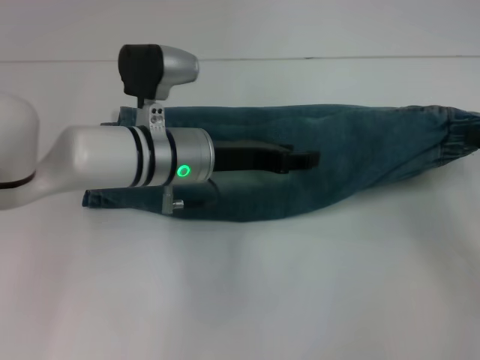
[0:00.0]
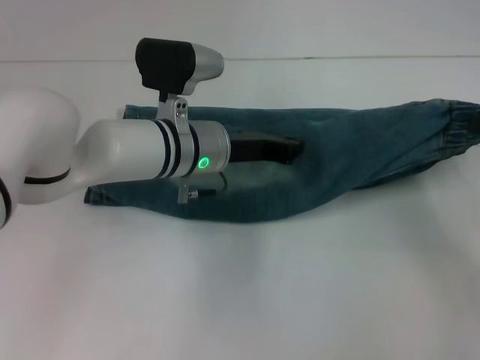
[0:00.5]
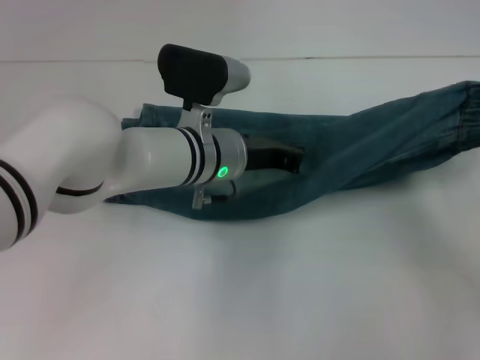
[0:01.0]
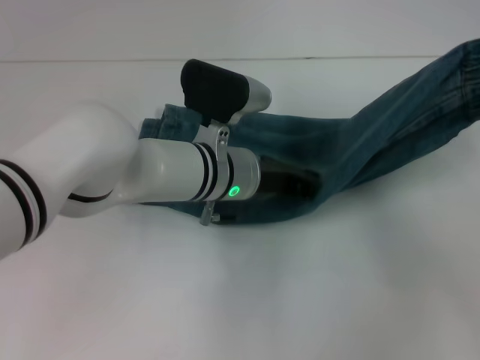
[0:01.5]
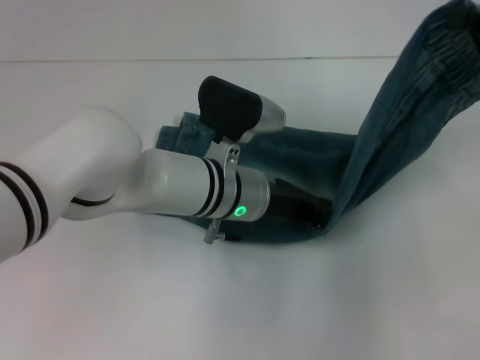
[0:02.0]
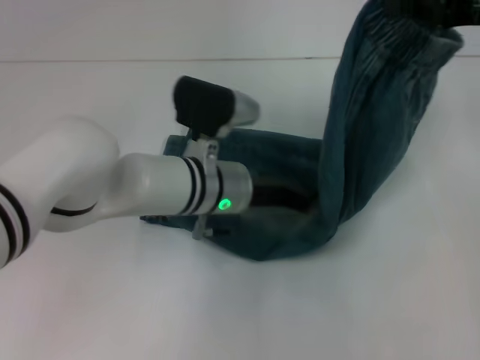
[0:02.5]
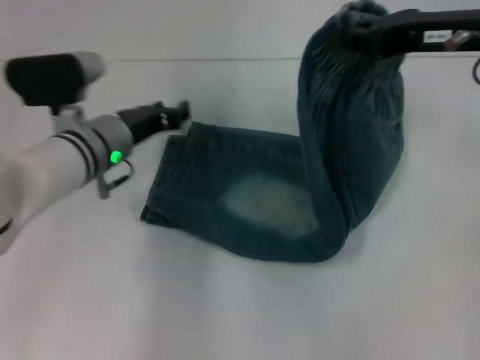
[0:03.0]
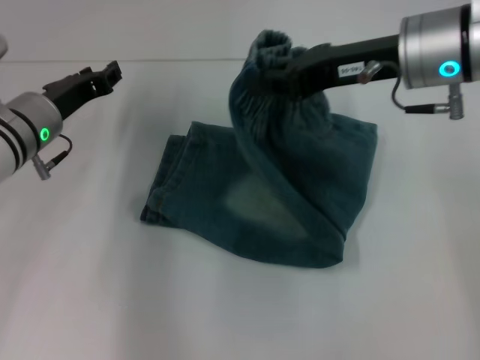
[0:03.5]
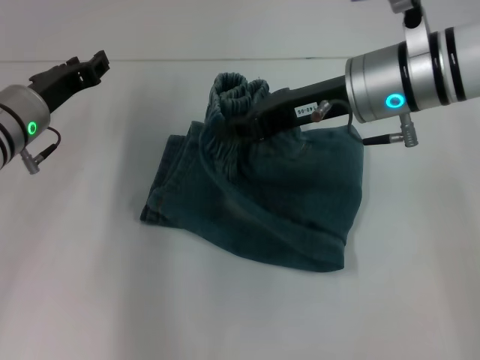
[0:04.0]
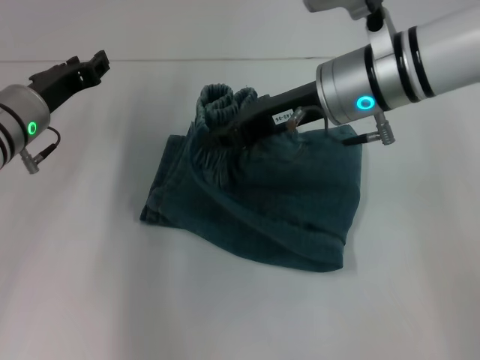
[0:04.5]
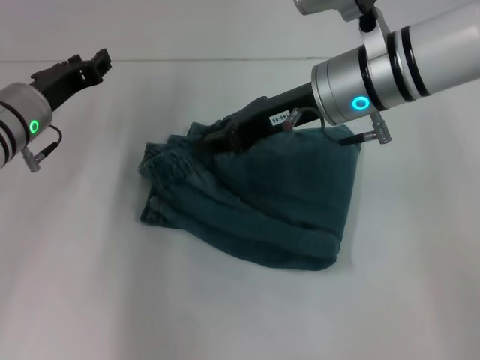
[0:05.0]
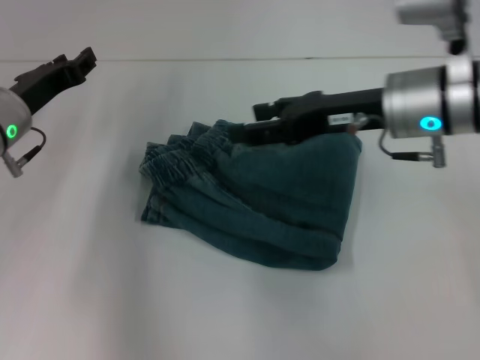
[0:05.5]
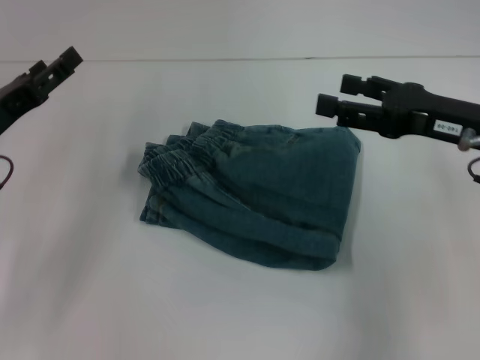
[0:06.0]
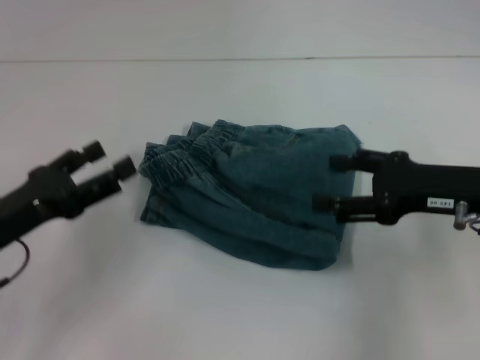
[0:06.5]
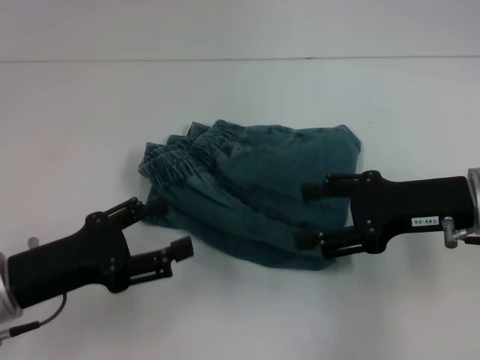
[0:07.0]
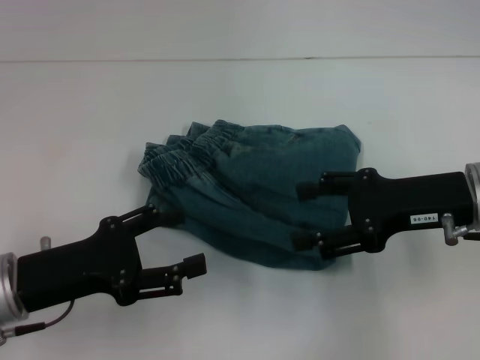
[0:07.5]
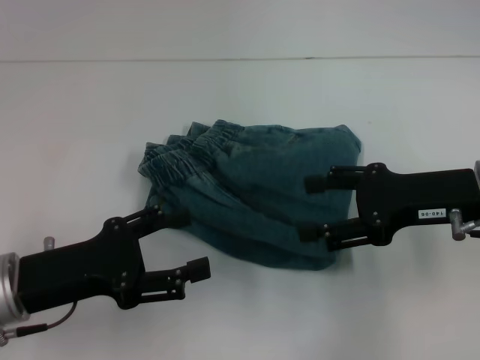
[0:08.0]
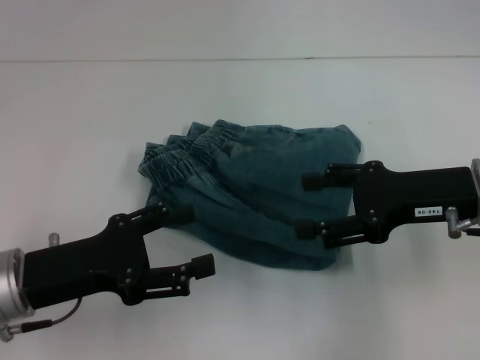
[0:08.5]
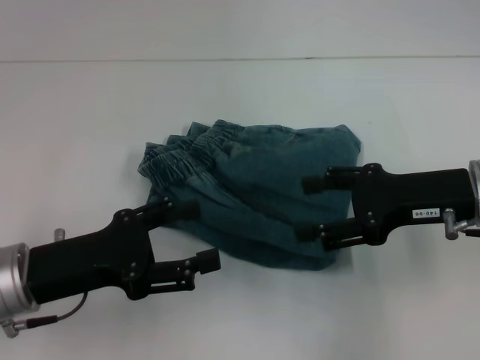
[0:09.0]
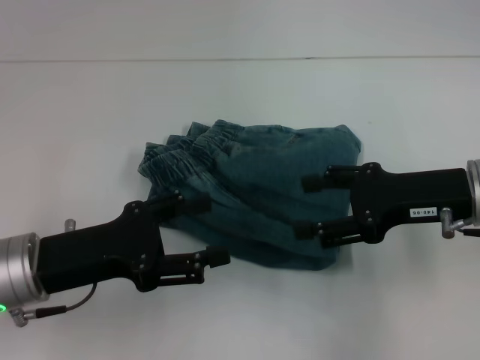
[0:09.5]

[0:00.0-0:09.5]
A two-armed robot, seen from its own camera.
Step, 0:00.0 to 0:02.0: Press the middle of the pants with your left hand.
Step, 0:02.5 to 0:04.5: Fold to the left with your right hand.
0:00.0 to 0:02.0: The right gripper travels upward by about 15 cm; the left gripper goes some 5 cm to the right, and closes its fingers.
0:02.0 to 0:04.0: The grippers both shift to the left by roughly 20 cm. The left gripper opens.
0:04.0 to 0:05.5: The right gripper opens up.
0:05.5 to 0:07.5: The left gripper shifts roughly 15 cm backward, and opens; the right gripper is displaced backward and to the right by about 10 cm.
0:07.5 to 0:09.5: The grippers move only a little.
